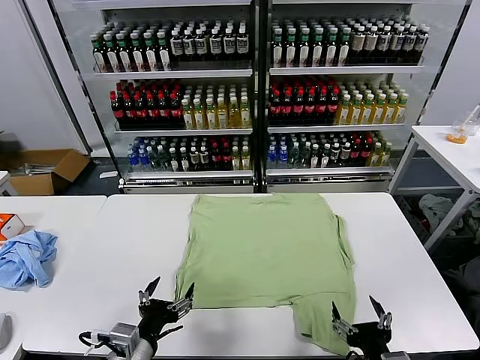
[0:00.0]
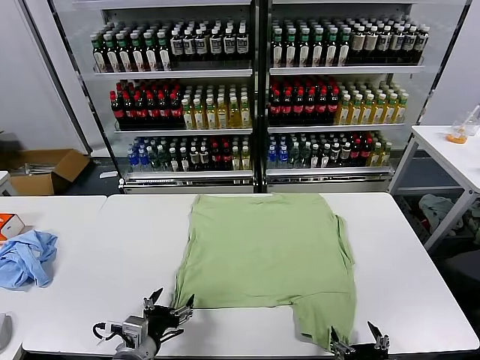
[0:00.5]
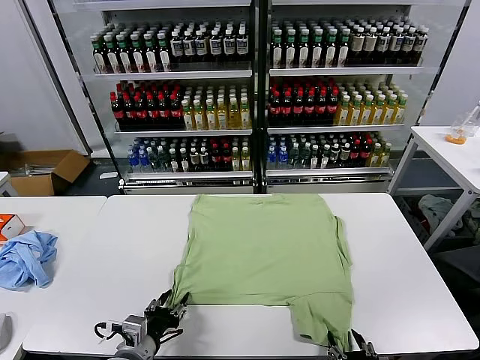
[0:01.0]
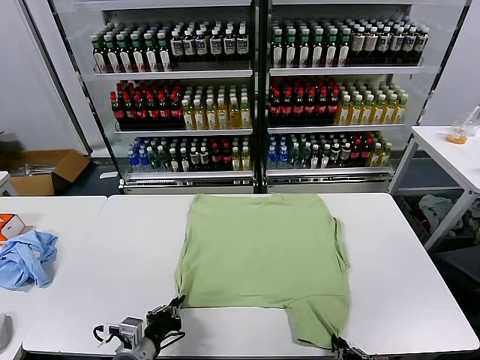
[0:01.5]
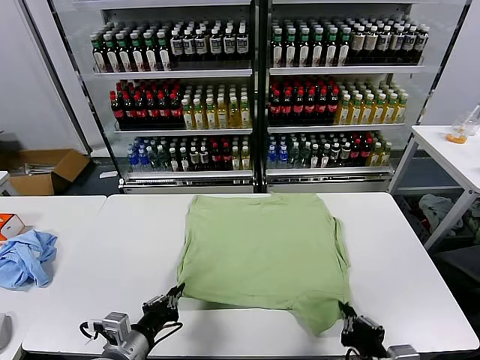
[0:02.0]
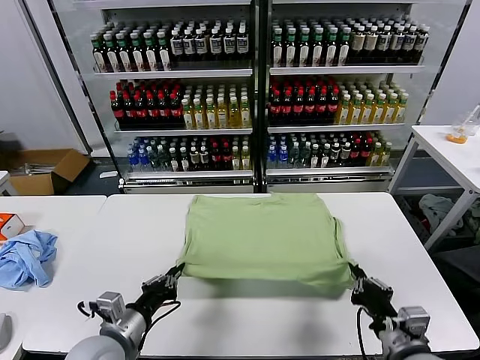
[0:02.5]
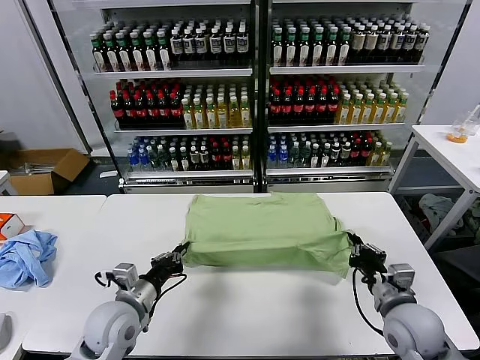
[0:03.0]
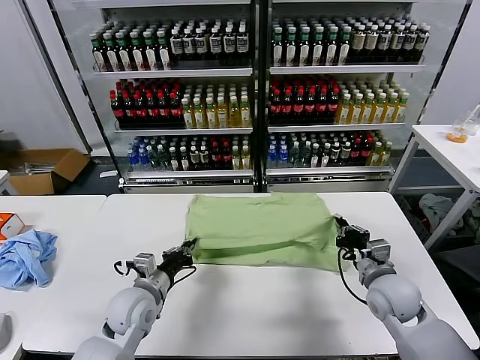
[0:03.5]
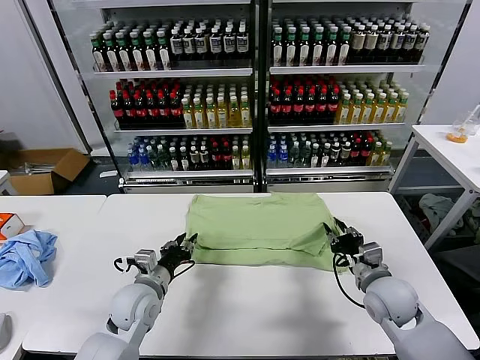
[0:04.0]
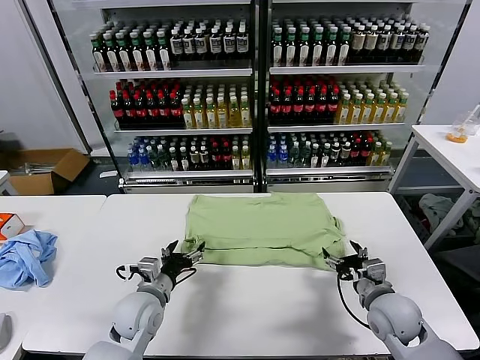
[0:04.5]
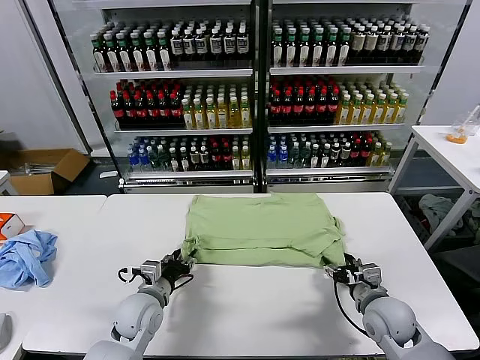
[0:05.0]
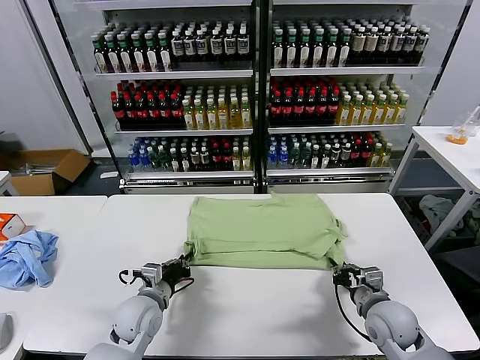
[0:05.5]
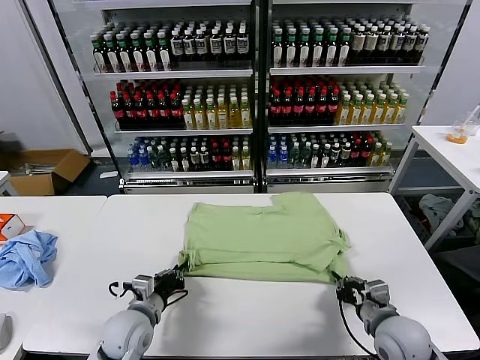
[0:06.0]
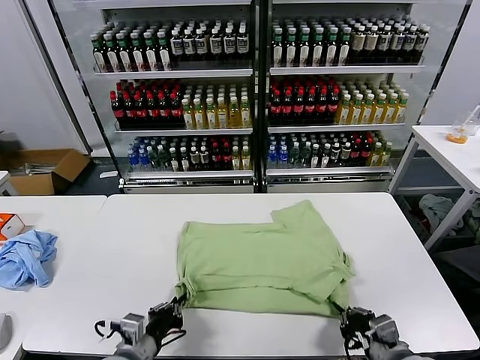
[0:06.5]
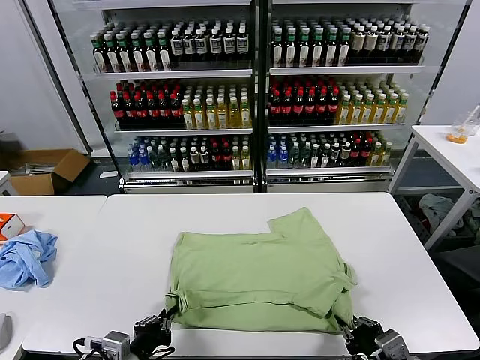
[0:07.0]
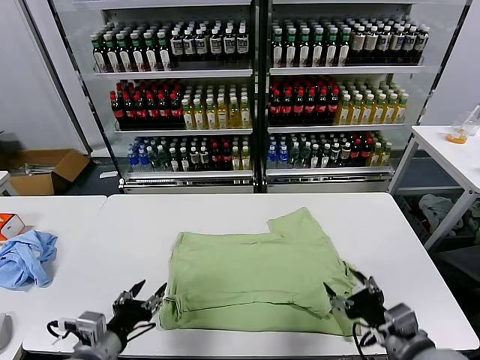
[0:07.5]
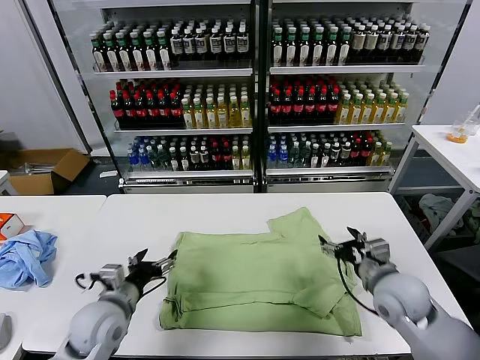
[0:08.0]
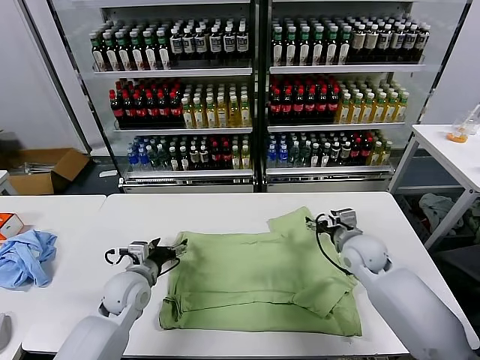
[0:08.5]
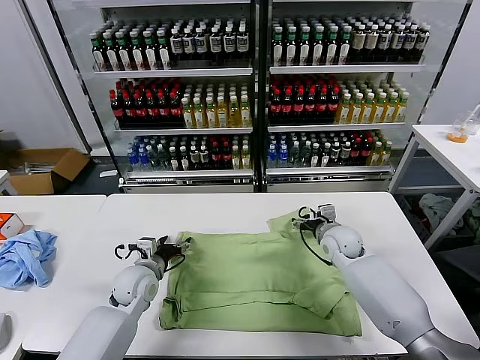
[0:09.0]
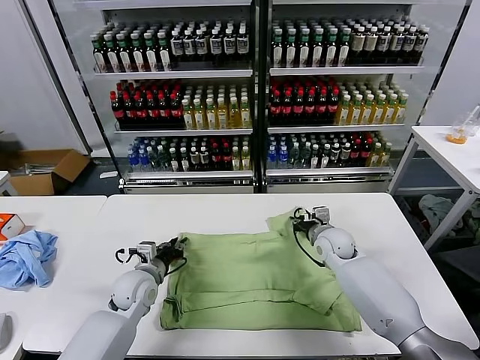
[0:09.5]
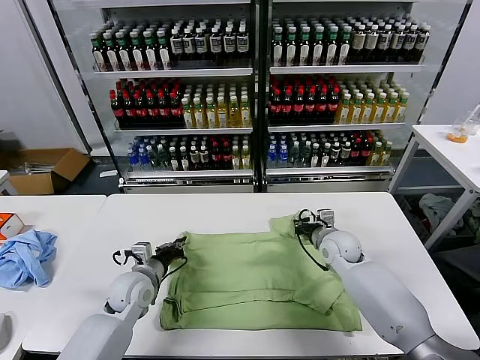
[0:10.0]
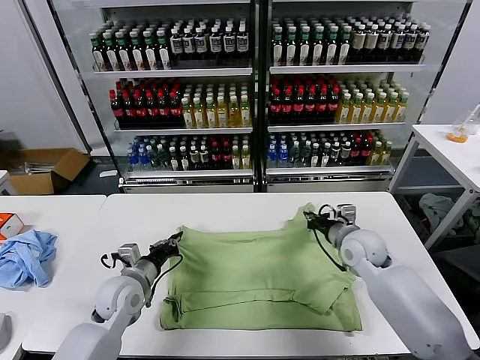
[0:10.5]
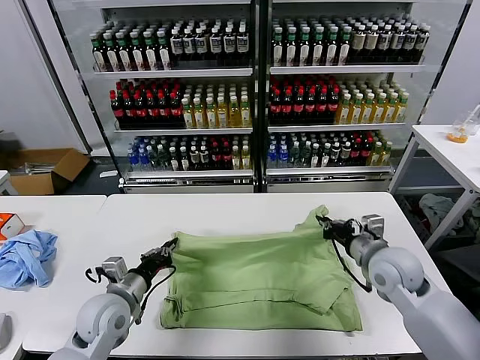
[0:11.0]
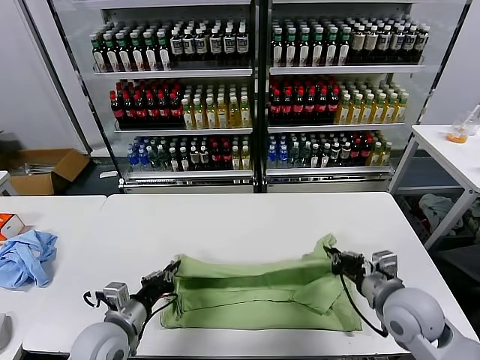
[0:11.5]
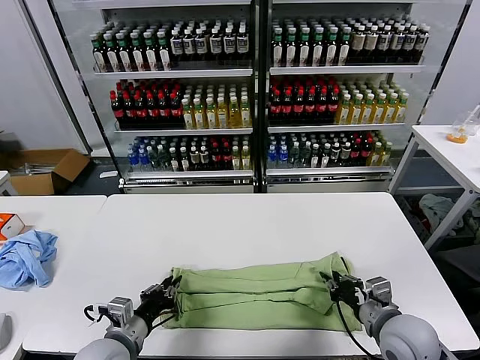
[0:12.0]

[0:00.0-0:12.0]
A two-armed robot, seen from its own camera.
Task of the whole recording: fold and organize the clothes.
Step, 0:00.0 to 0:01.5: use both grippers simultaneously to clamp the lower edge of the clothing fabric.
Step, 0:02.0 to 0:04.0: use both grippers to drag the lower edge of the fabric forward and fold it over the upper edge.
Step, 0:04.5 to 0:07.0: Drag the clothes downward with both gripper.
Step, 0:07.5 to 0:09.5: use both grippers simultaneously to clamp the upper edge of the clothing fabric.
0:02.0 to 0:04.0: Both grippers move forward, about 15 cm. The left gripper opens its fingers; the right gripper opens.
0:04.0 to 0:06.0: The left gripper moves backward, roughly 5 cm, and closes up; the right gripper moves backward, approximately 10 cm, and closes up.
0:06.0 to 0:08.0: The left gripper heads upward, covering about 5 cm, goes backward and returns, roughly 15 cm each way, and opens its fingers, while the right gripper heads forward and upward, covering some 15 cm, and opens its fingers.
0:08.0 to 0:10.0: Both grippers travel together forward and downward, approximately 10 cm. The right gripper closes its fingers. The left gripper closes.
0:10.0 to 0:12.0: Both grippers move backward, approximately 20 cm.

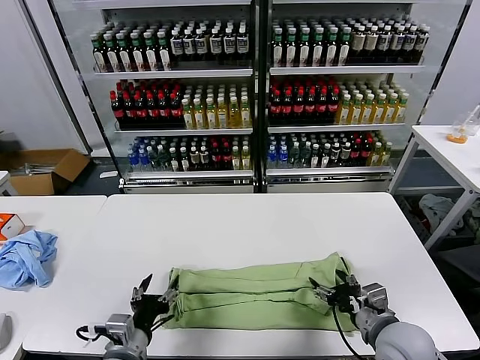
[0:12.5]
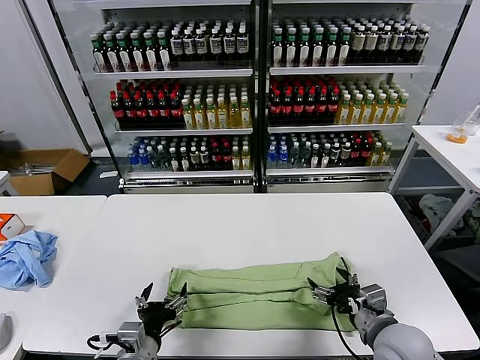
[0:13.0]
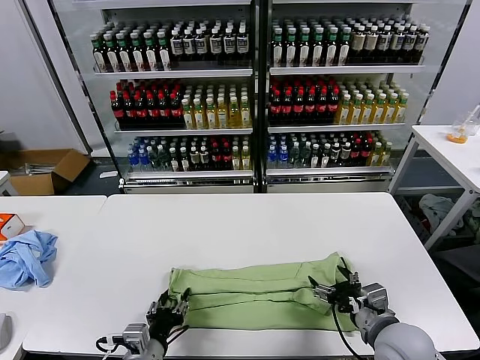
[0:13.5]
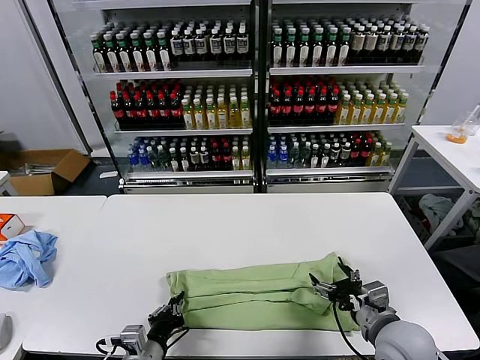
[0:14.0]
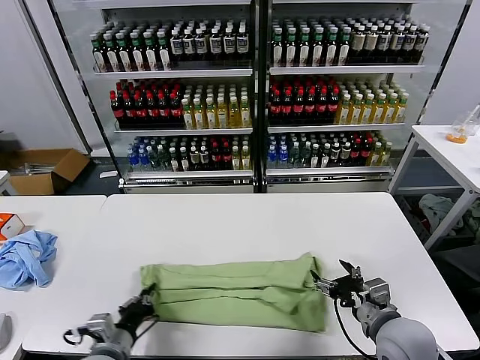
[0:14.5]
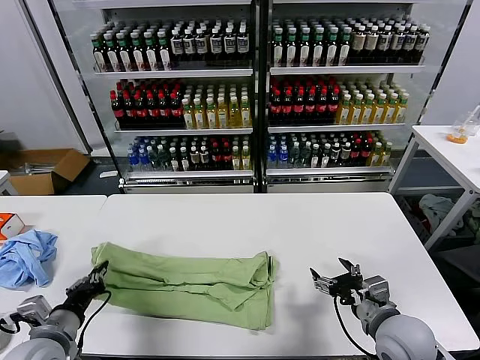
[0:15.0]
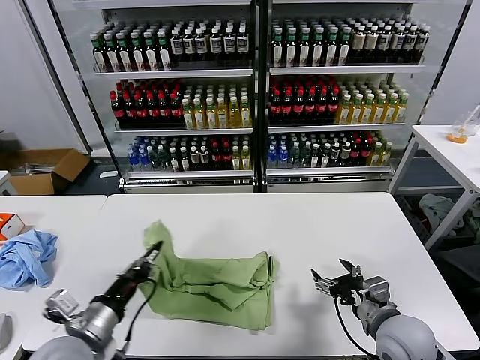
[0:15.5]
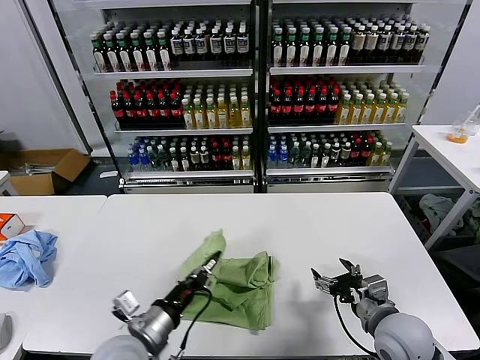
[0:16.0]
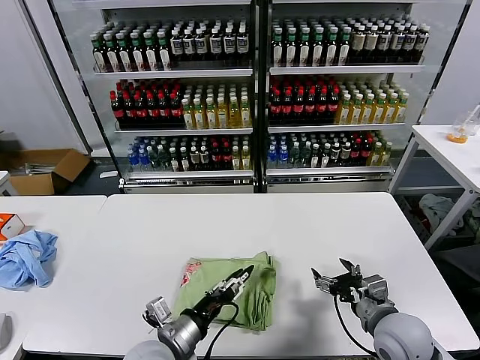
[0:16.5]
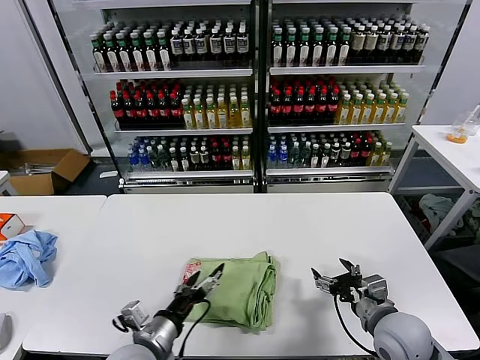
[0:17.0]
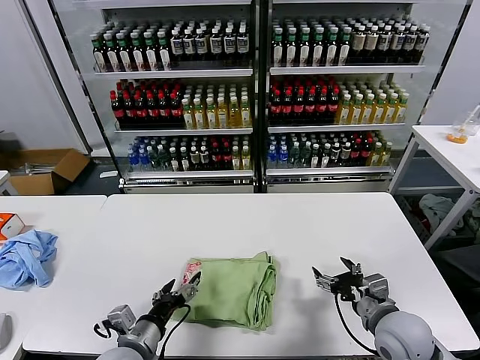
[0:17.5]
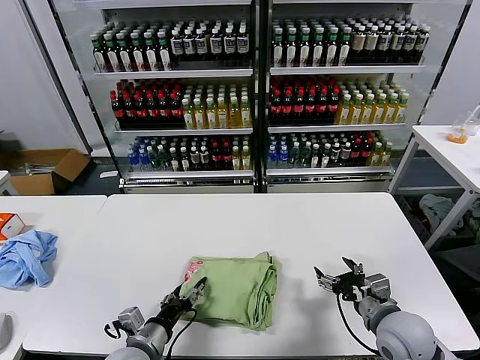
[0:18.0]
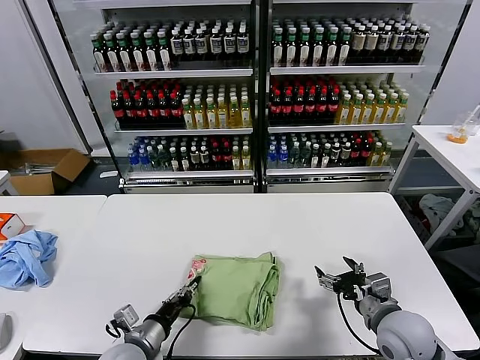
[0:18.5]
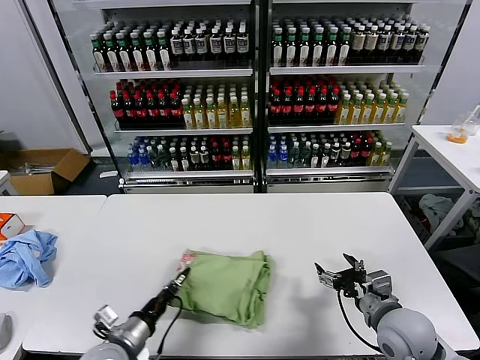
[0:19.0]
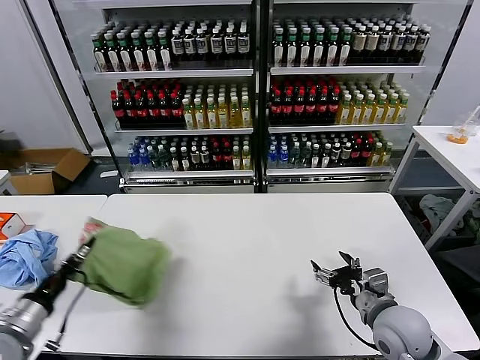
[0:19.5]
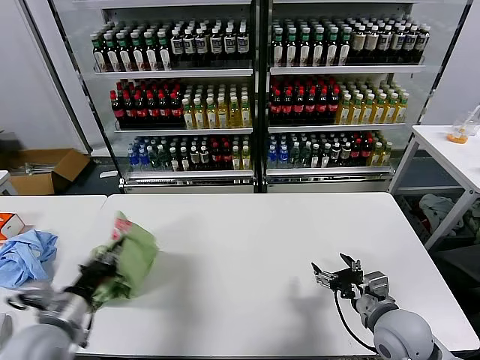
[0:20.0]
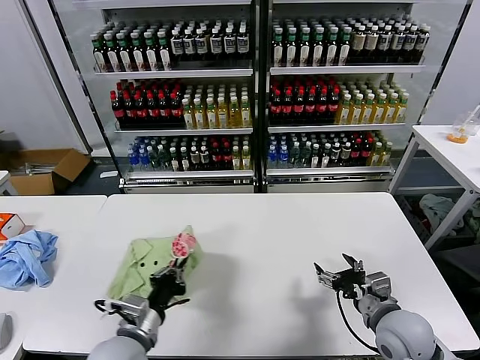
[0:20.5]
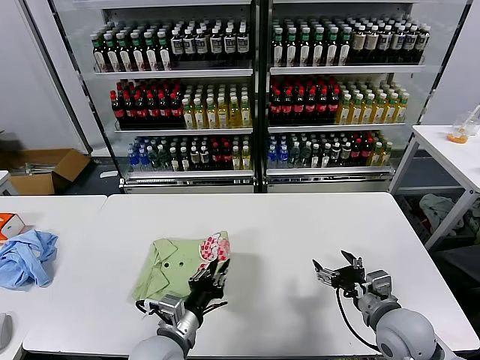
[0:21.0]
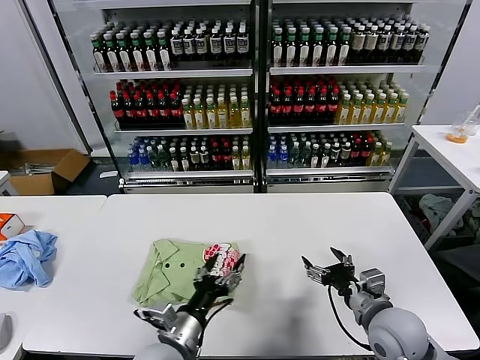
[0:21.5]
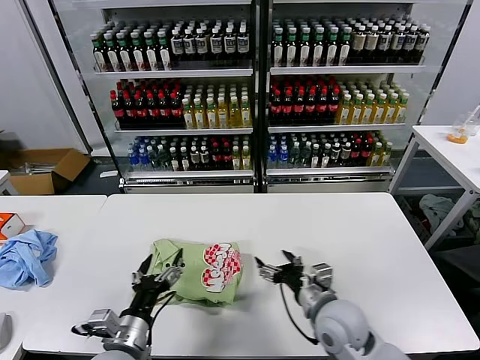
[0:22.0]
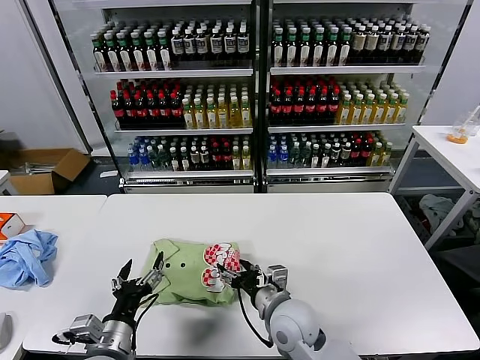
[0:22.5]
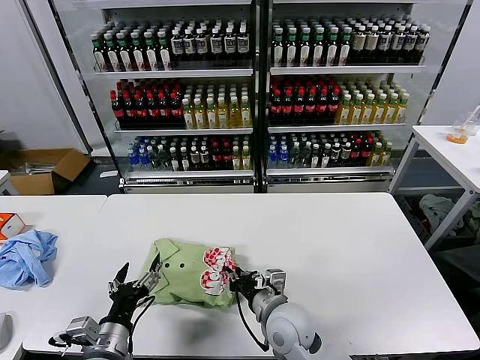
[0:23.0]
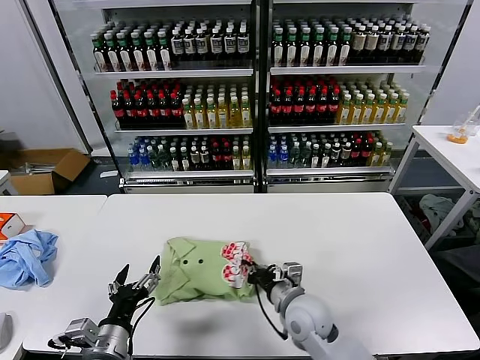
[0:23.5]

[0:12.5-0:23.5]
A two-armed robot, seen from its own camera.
Task of the whole recording: fold and organize the clothes.
Step, 0:13.0 to 0:14.0: use the left gripper to clamp the left edge of the fabric.
Step, 0:14.5 to 0:16.5: use the left gripper to drag the left edge of the fabric to the left and folds it over the right edge.
Step, 0:17.0 to 0:21.0: Flip the folded clothes over with left gripper.
0:12.5 to 0:14.5: The left gripper changes place by about 5 cm, and closes.
0:14.5 to 0:16.0: The left gripper moves upward and to the right, some 10 cm.
0:16.0 to 0:18.0: The left gripper heads downward, covering approximately 10 cm, and opens.
0:18.0 to 0:20.0: The left gripper heads to the left and upward, covering about 20 cm, and closes up.
0:20.0 to 0:21.5: The left gripper moves to the right, approximately 20 cm, and opens.
0:21.5 to 0:23.5: Both grippers travel together to the left, about 15 cm. The right gripper closes its fingers.

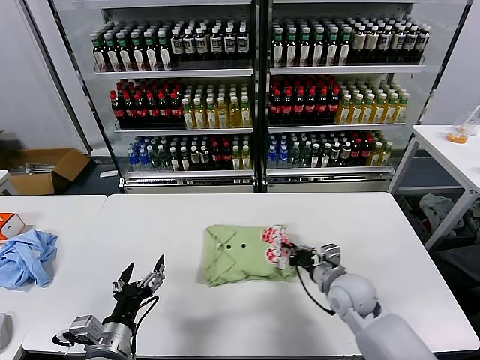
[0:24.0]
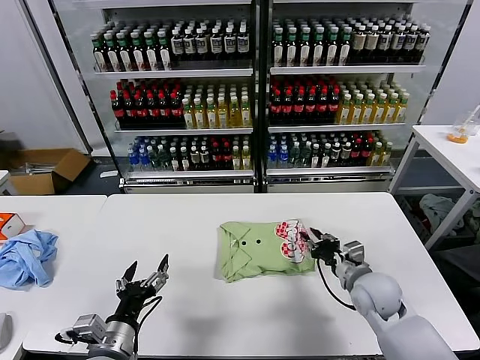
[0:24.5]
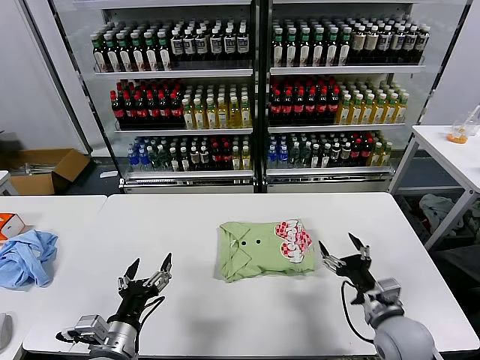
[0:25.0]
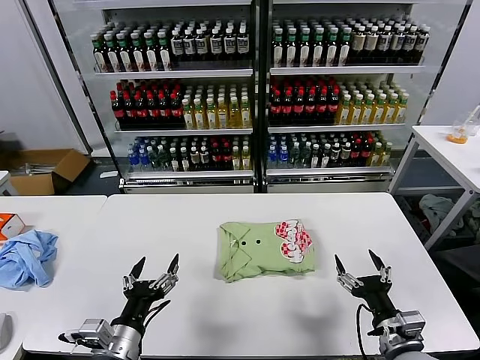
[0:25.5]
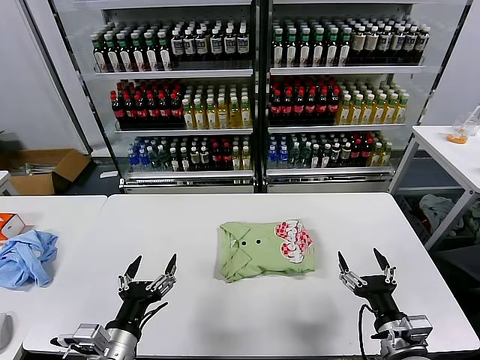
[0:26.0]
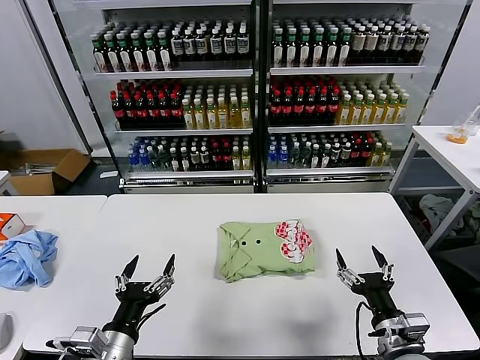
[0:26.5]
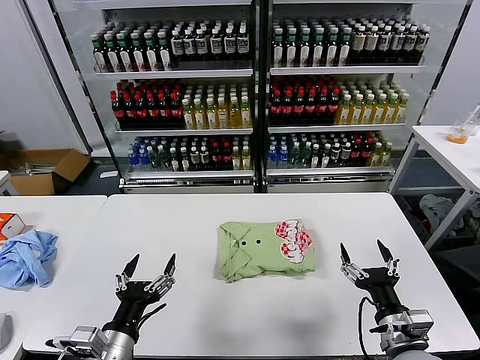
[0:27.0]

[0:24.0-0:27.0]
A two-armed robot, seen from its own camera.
Task of the whole recording: fold and organize the clothes.
0:24.0 to 0:25.5: The right gripper heads backward and to the right, covering some 20 cm, and opens its fingers.
0:25.5 to 0:27.0: The grippers make only small movements.
